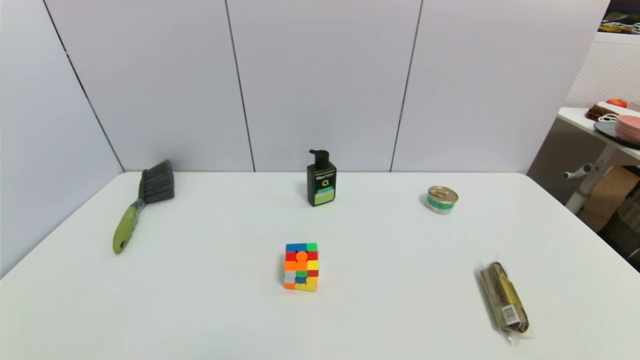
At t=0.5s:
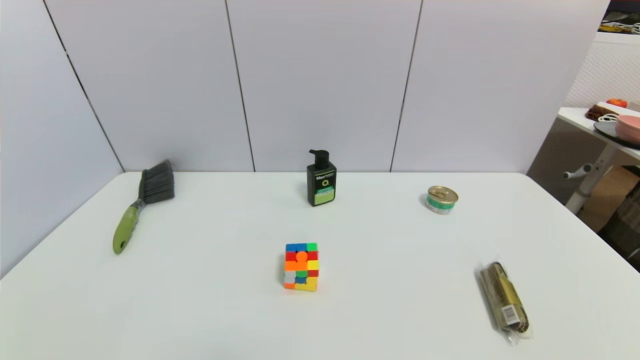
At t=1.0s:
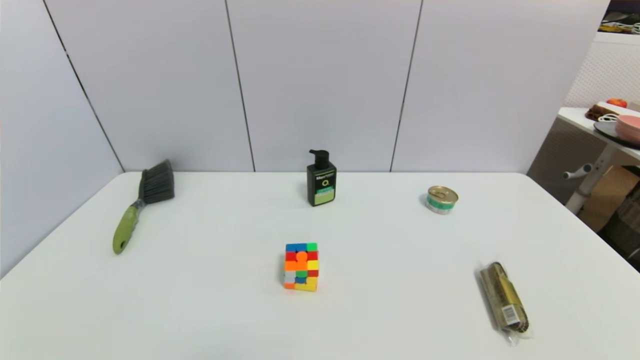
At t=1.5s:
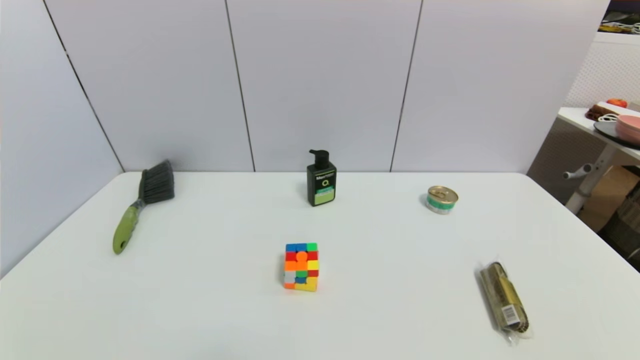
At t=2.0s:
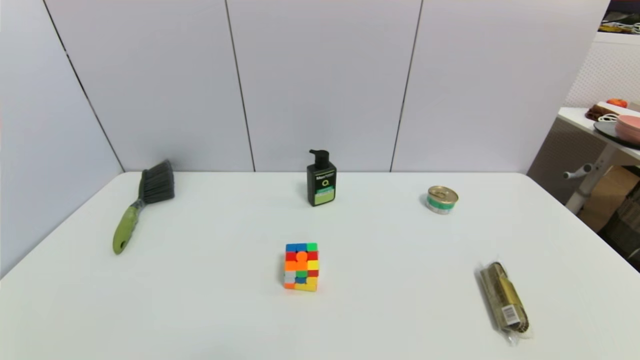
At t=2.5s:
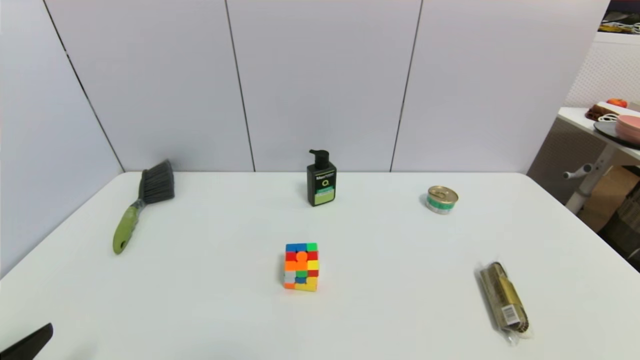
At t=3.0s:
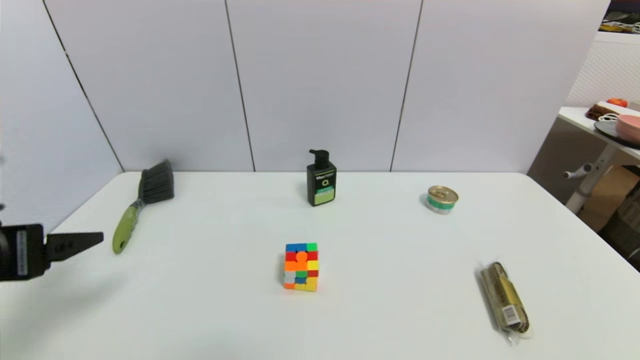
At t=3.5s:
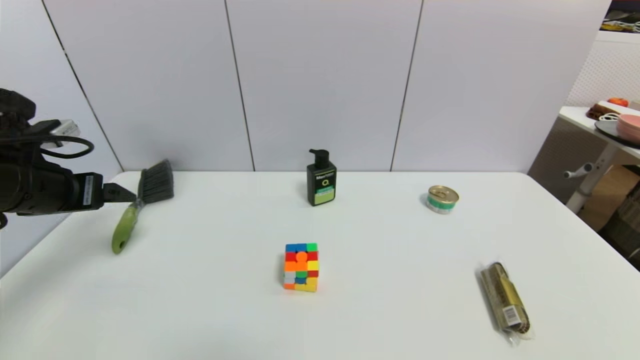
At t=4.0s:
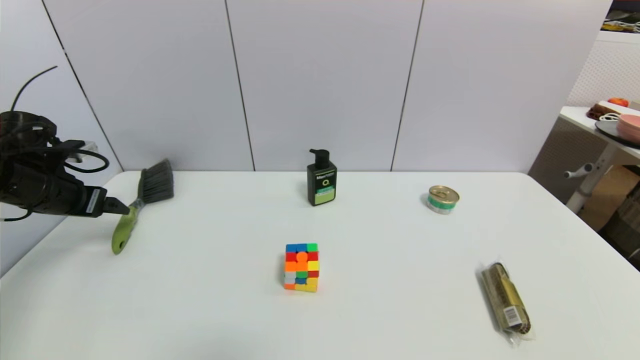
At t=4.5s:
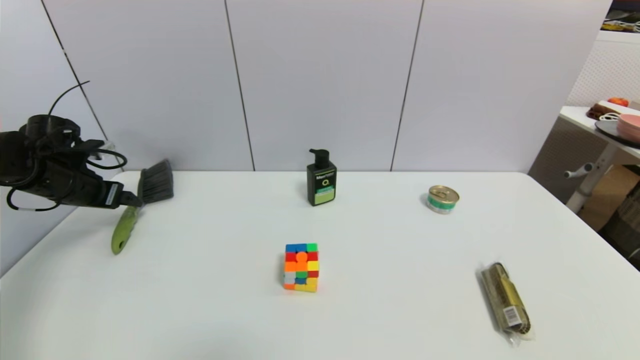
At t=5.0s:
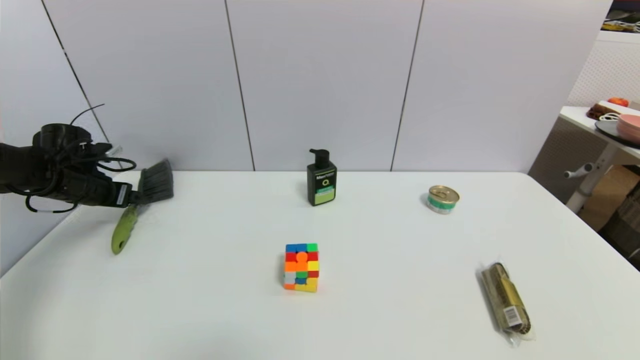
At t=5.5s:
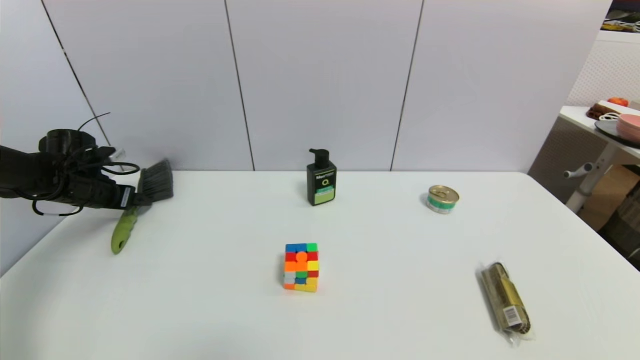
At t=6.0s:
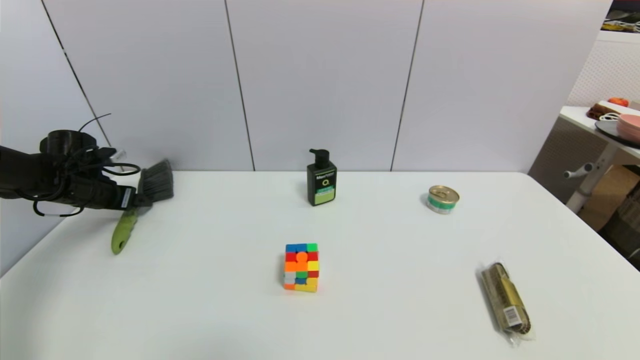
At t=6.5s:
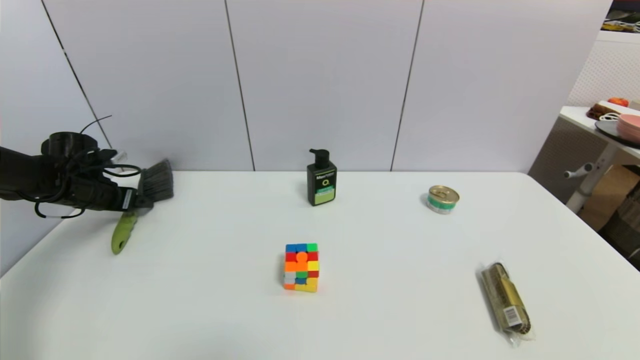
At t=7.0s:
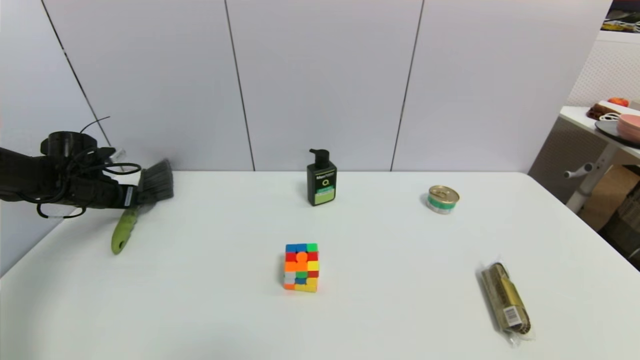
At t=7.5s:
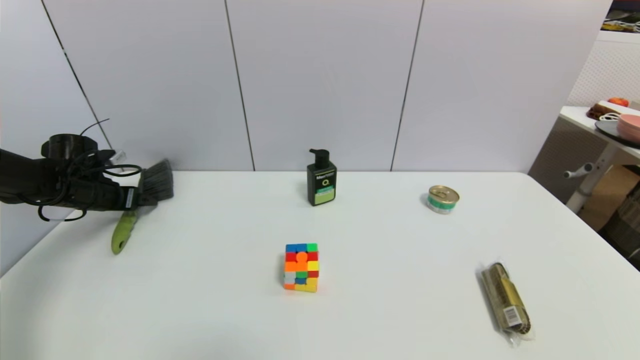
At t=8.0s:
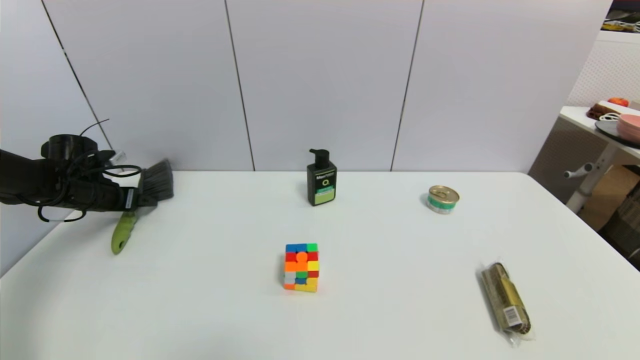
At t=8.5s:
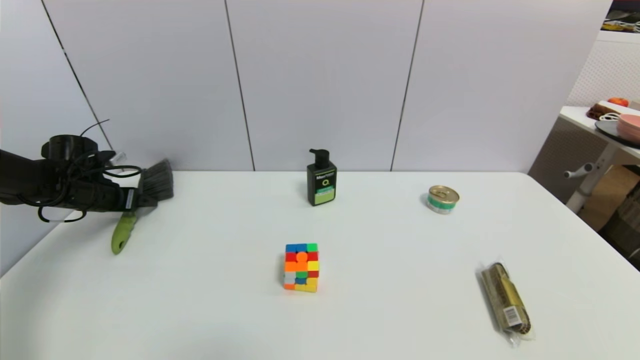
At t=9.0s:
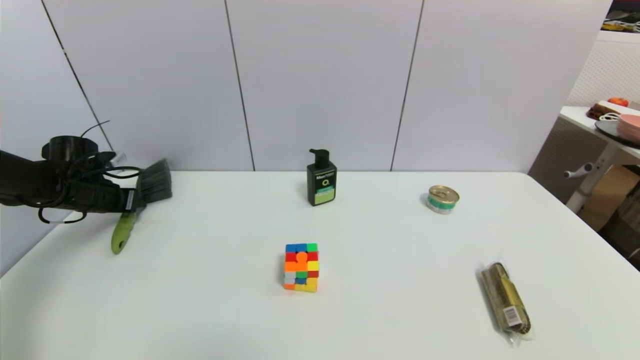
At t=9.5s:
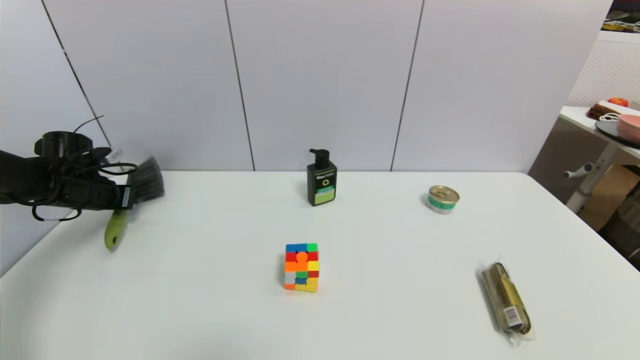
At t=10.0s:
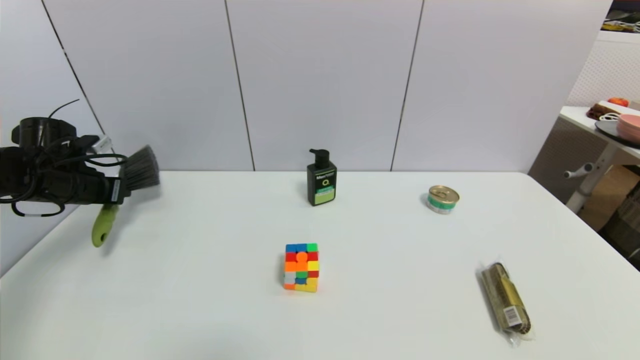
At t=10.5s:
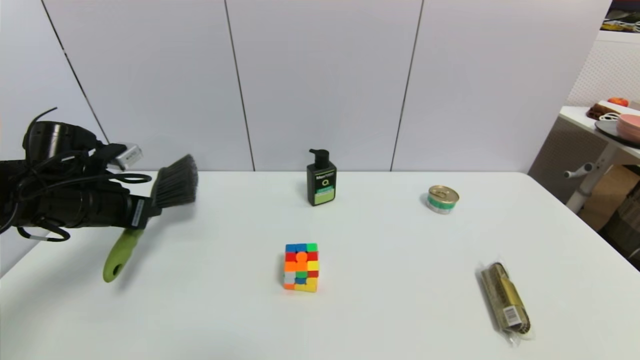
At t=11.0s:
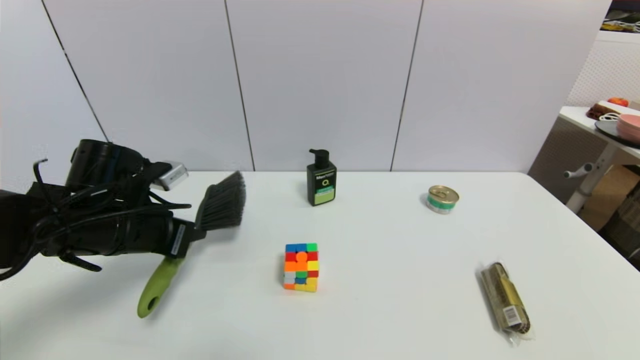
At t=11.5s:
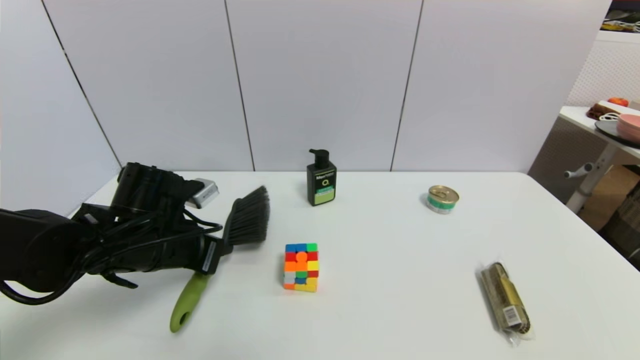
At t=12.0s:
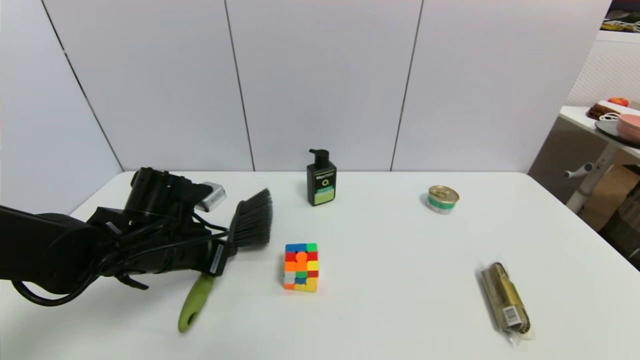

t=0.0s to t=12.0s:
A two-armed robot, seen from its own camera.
Task of the whole recording: put the brush in the designated position.
Step, t=2.5s to t=9.0s: Grasp the brush with left gripper.
t=0.0s to t=2.0s: Neither gripper changes place.
t=2.0s to t=4.0s: The left gripper travels forward by some 35 cm.
t=4.0s to t=6.0s: The left gripper shifts some 10 cm forward and downward.
t=6.0s to t=8.0s: The grippers make only small movements.
t=8.0s to t=10.0s: The left gripper changes place by some 5 cm, and closes up.
t=10.0s to t=12.0s: The left gripper heads to the right and backward, covering roughly 25 cm.

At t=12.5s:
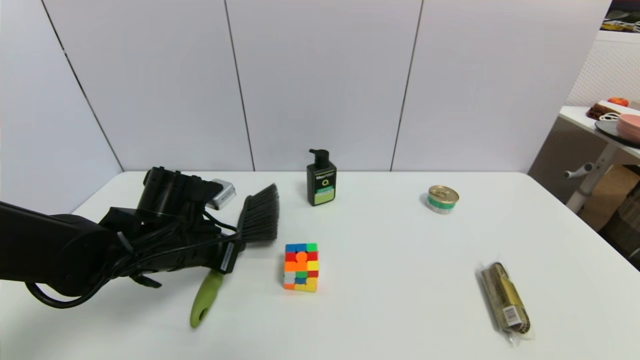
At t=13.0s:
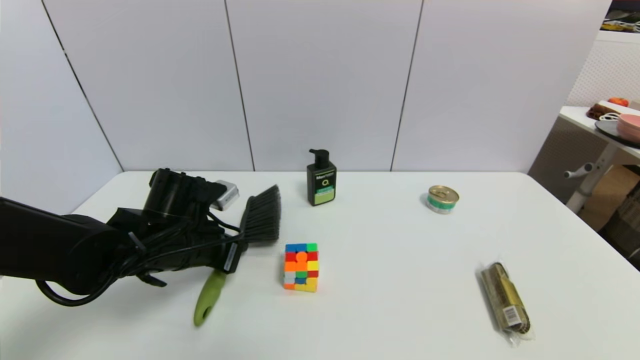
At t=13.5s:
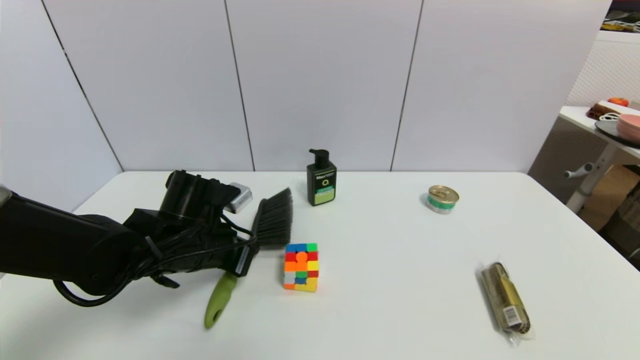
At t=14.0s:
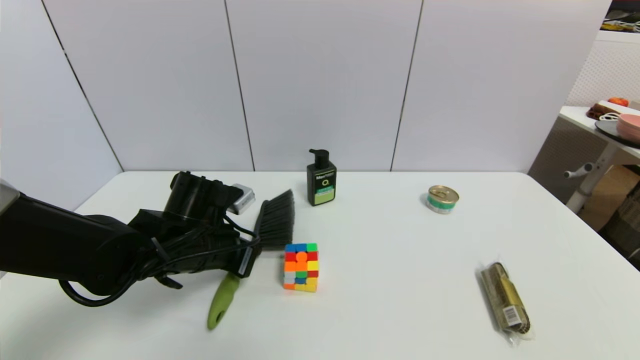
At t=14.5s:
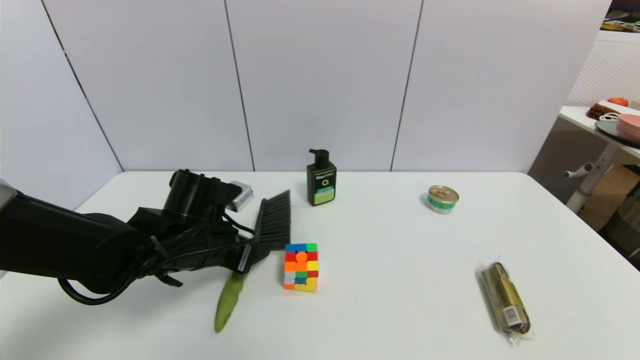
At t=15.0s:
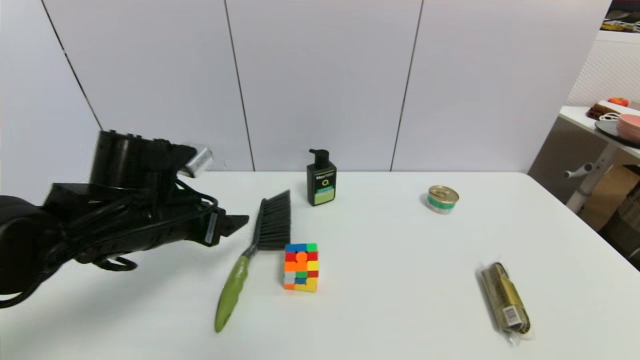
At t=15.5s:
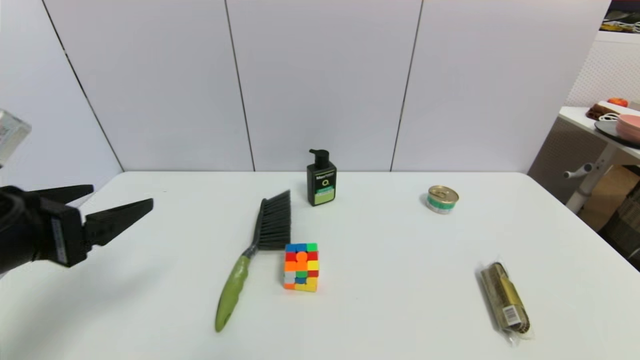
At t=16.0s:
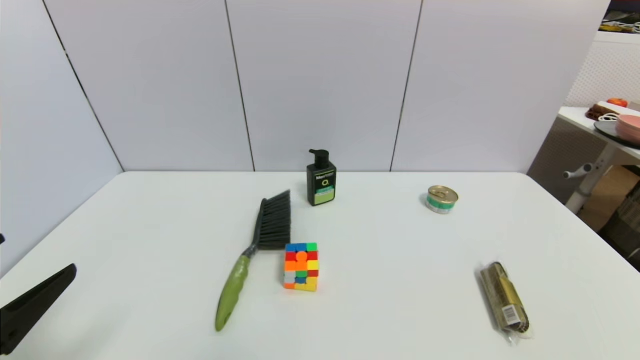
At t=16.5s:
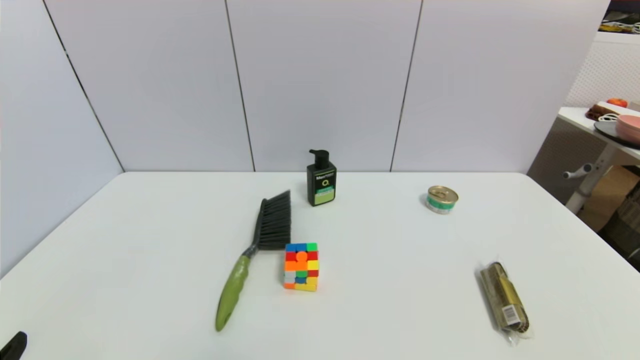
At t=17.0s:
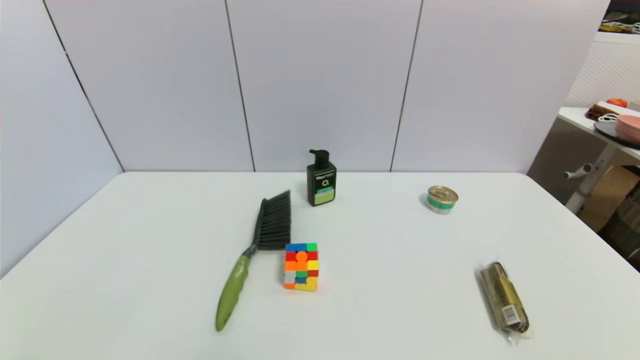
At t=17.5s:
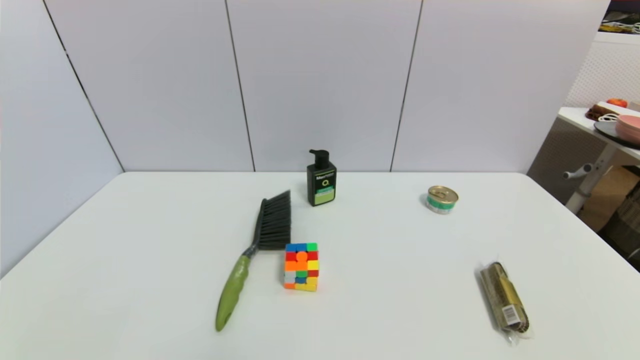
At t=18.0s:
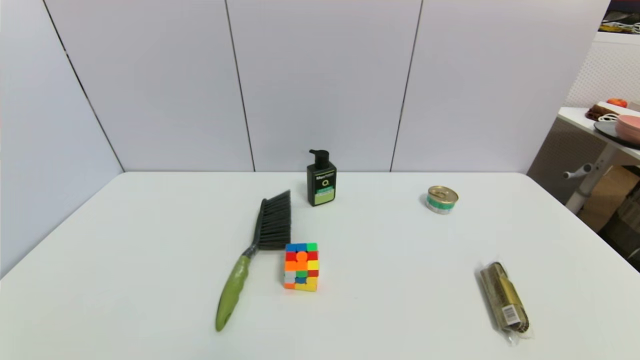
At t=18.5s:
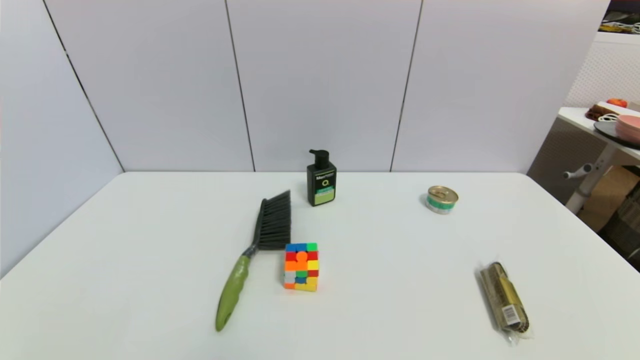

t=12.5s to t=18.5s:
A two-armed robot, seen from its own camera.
Task of the whole recording: put the brush in the designated position.
t=12.5s to t=14.5s: The left gripper opens.
t=14.5s to t=16.5s: The left gripper goes approximately 30 cm backward and to the left, and opens.
